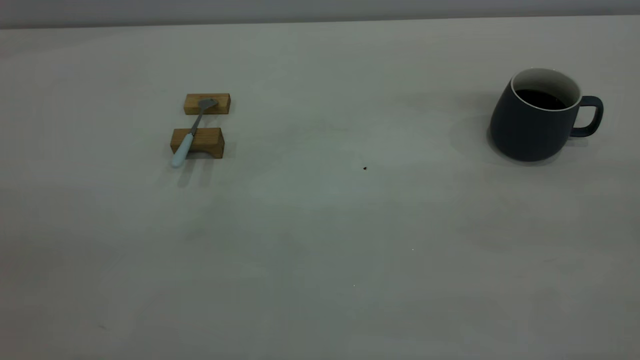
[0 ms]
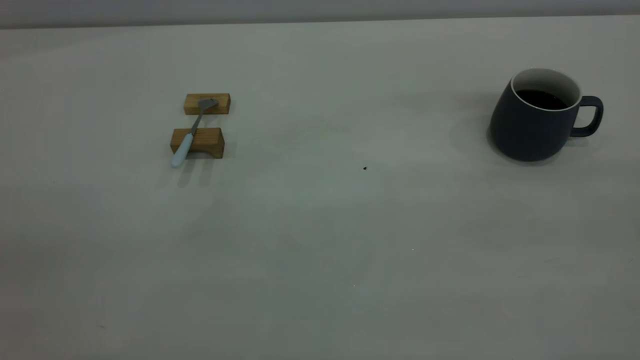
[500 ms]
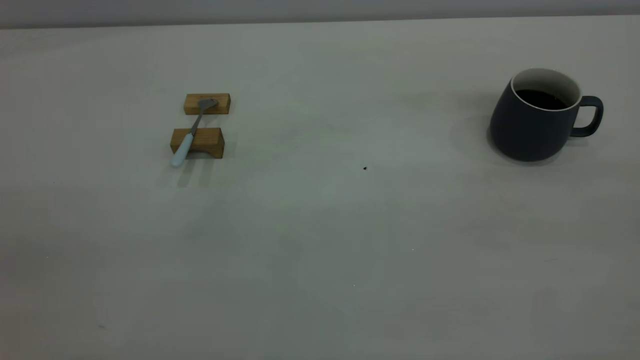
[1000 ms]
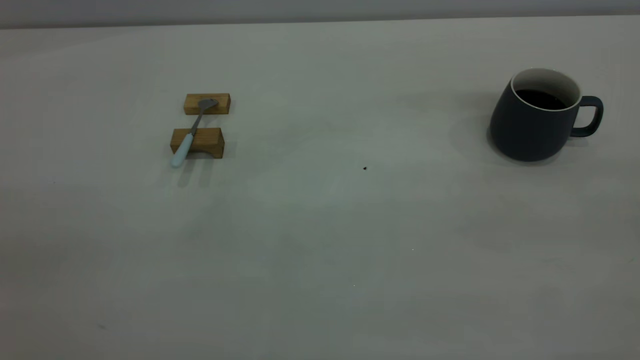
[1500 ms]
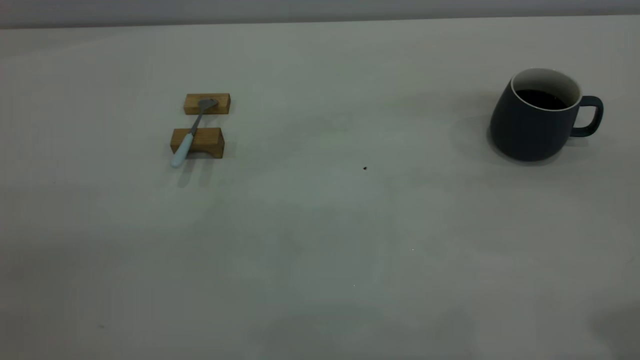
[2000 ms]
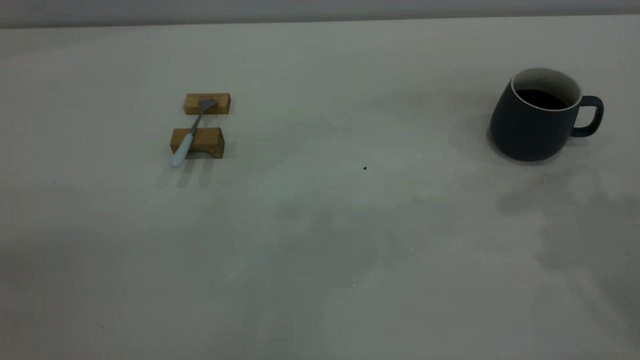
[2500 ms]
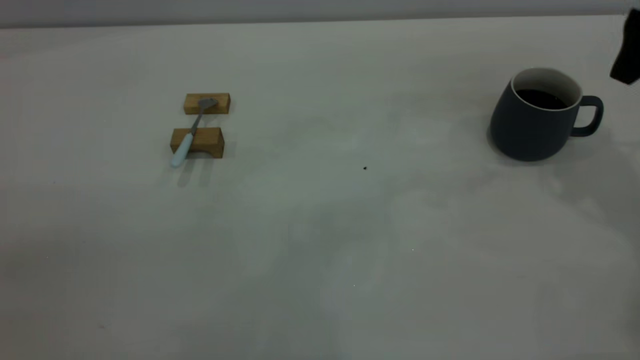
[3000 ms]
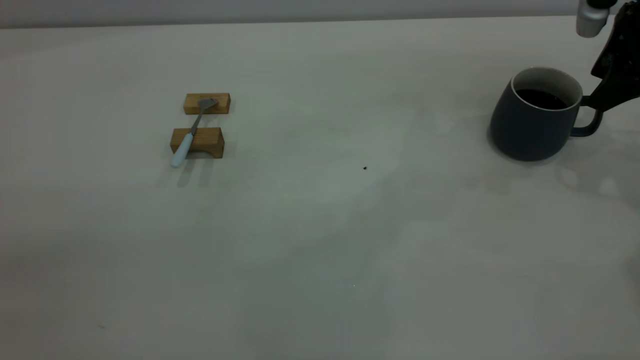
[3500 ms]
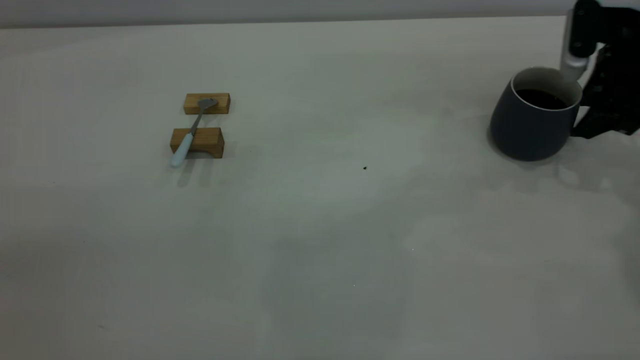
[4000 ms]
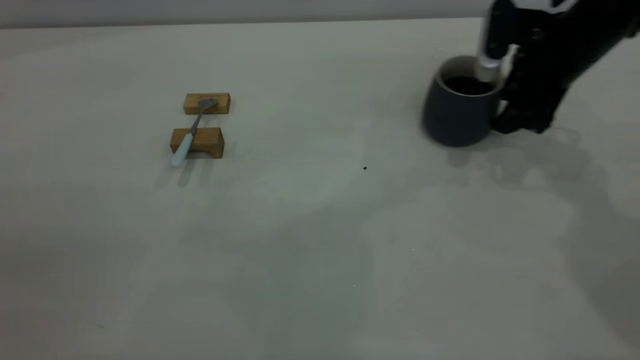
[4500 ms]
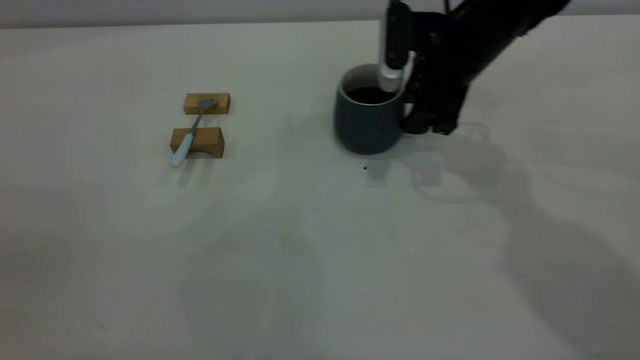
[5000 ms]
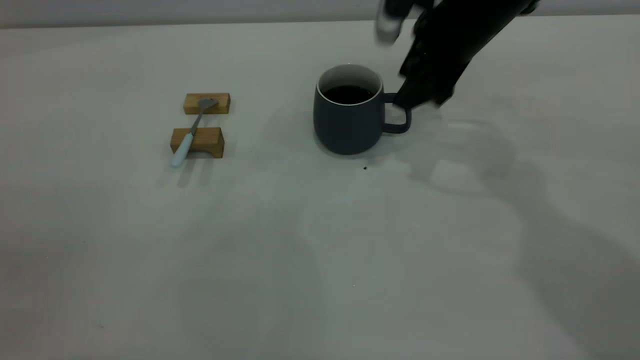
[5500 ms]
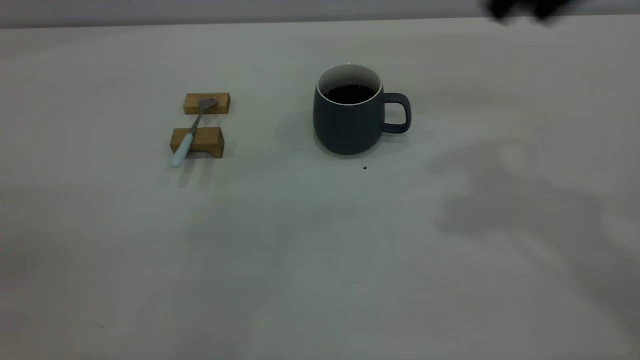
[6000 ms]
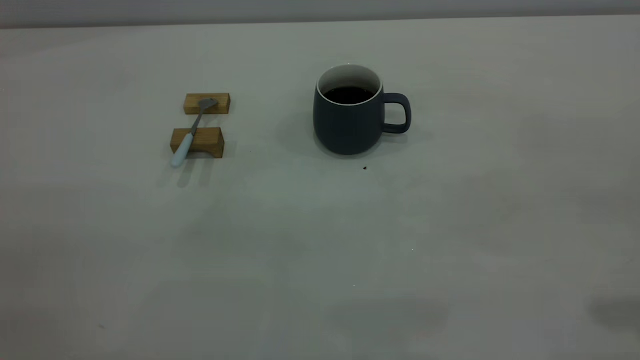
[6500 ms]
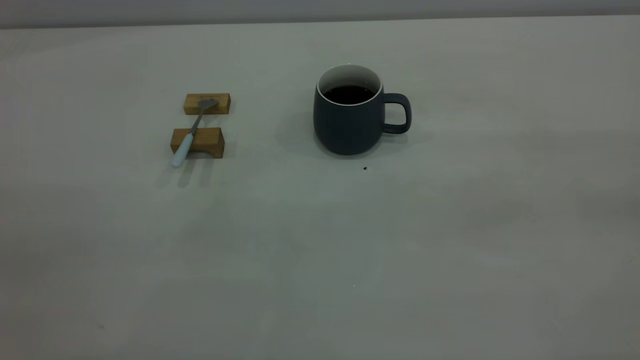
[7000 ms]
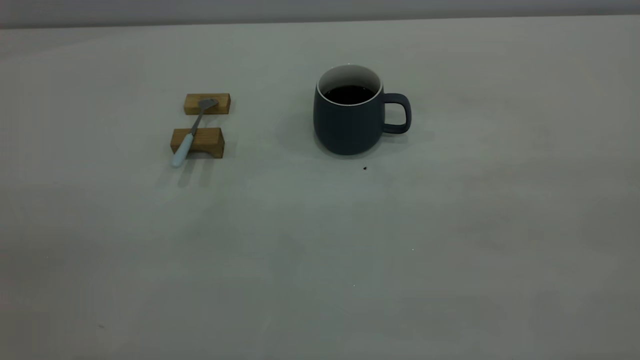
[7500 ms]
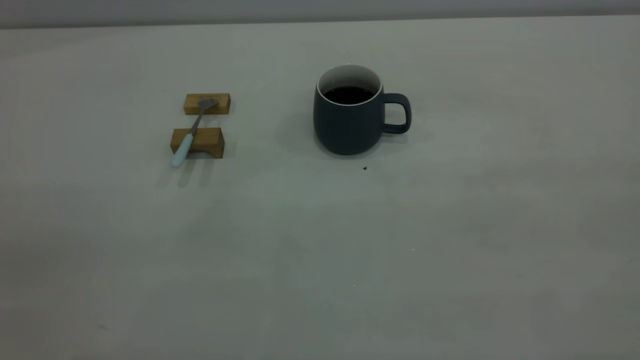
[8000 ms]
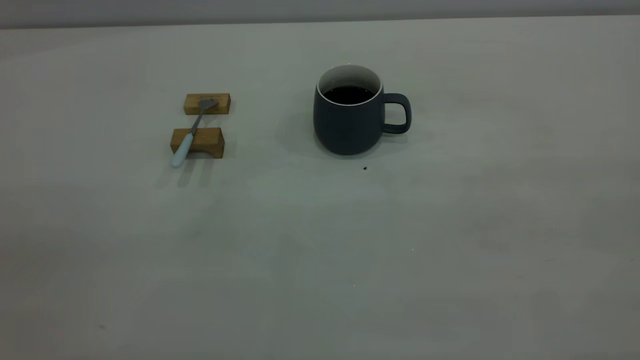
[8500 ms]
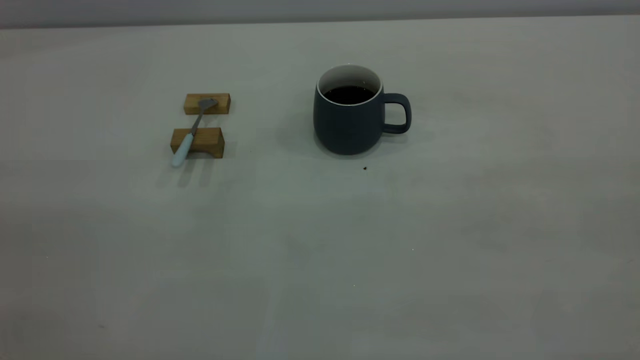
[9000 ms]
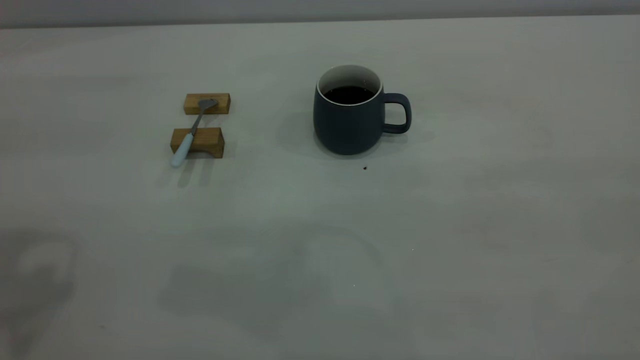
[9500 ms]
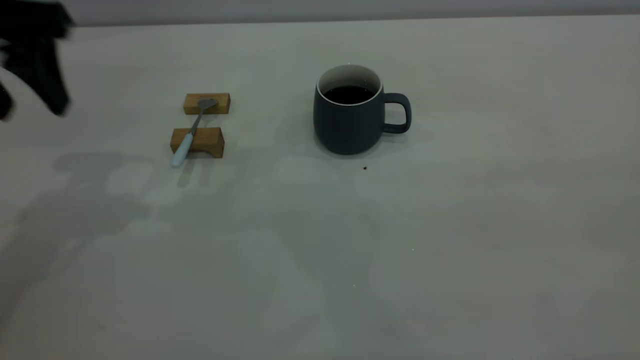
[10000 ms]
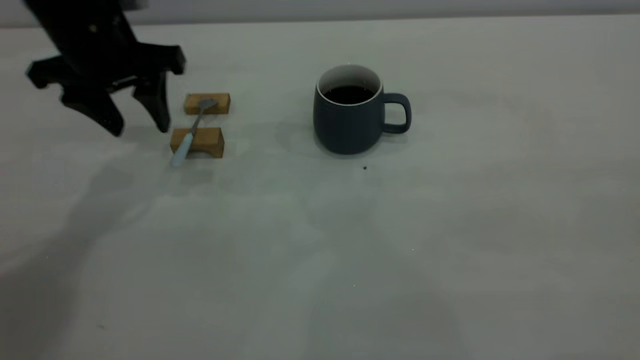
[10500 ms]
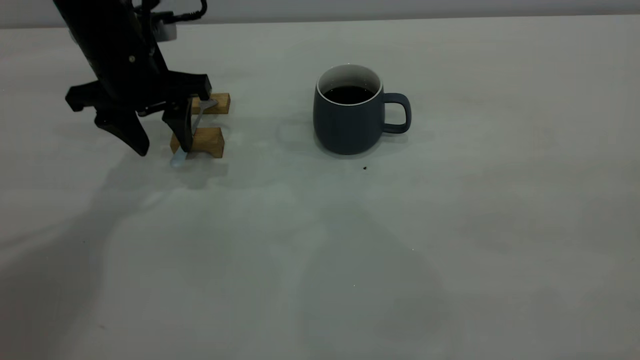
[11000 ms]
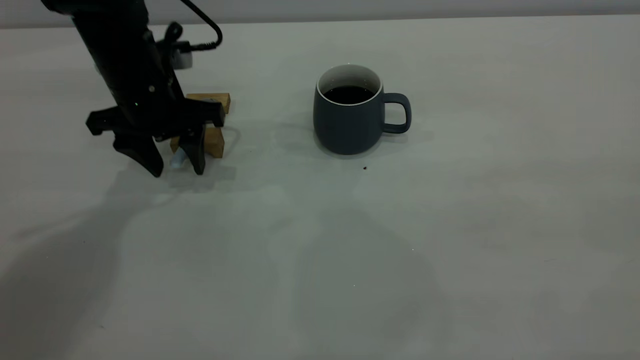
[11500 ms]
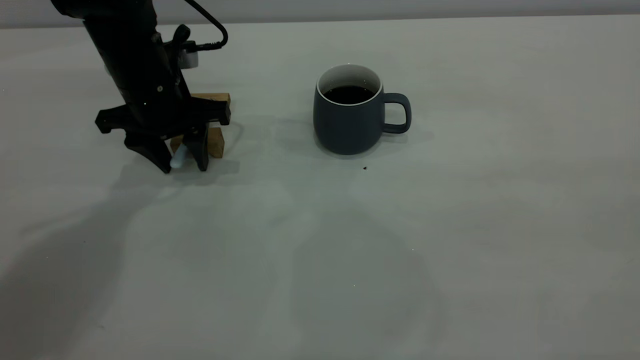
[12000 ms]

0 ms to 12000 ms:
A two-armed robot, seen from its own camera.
Step, 0 ms to 5500 ms: Move the cup with coffee to the center of view.
2000 ms to 4000 ms: The right gripper shifts roughly 35 cm forward and downward, and closes up.
4000 ms to 6000 ms: The right gripper is displaced upward, to the left and backward by approximately 25 cm.
6000 ms to 8000 ms: The right gripper heads backward, covering about 30 cm.
8000 ms to 10000 ms: The left gripper moves forward, some 35 cm, and opens.
10000 ms to 12000 ms: The left gripper shifts approximately 20 cm downward, forward and to the right.

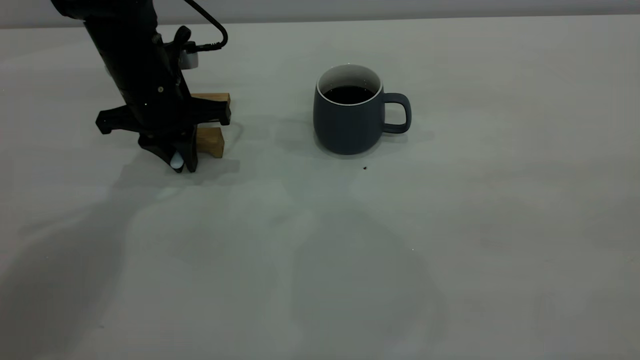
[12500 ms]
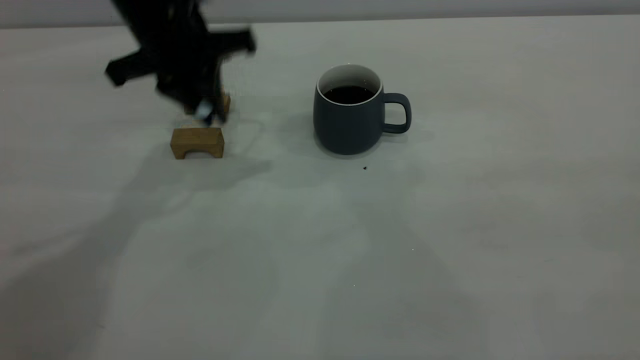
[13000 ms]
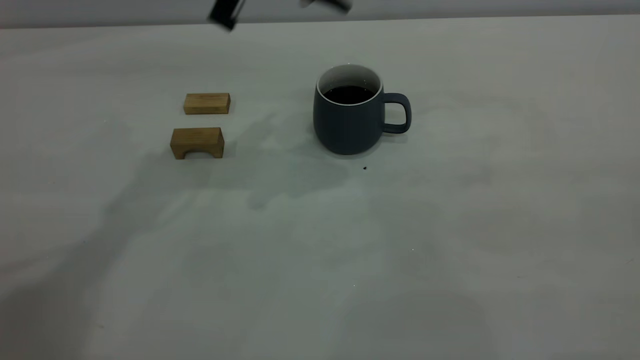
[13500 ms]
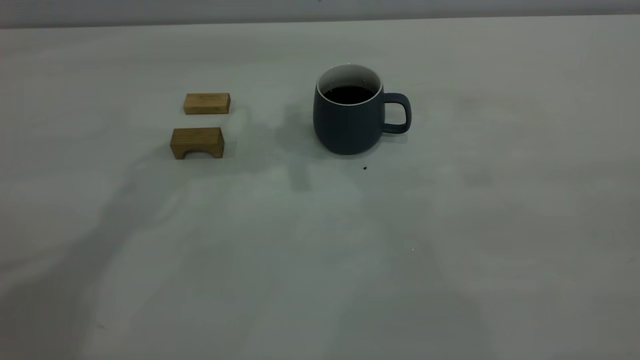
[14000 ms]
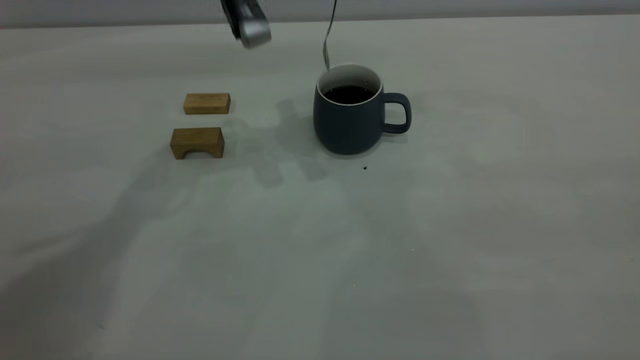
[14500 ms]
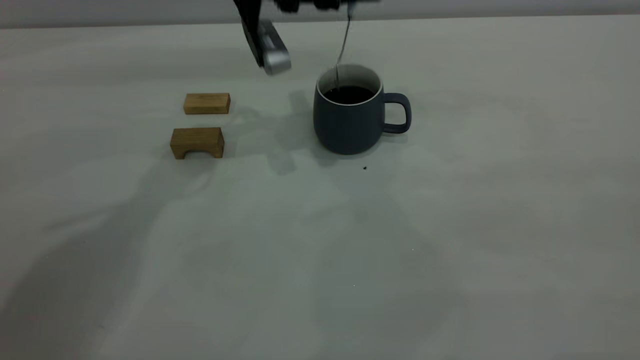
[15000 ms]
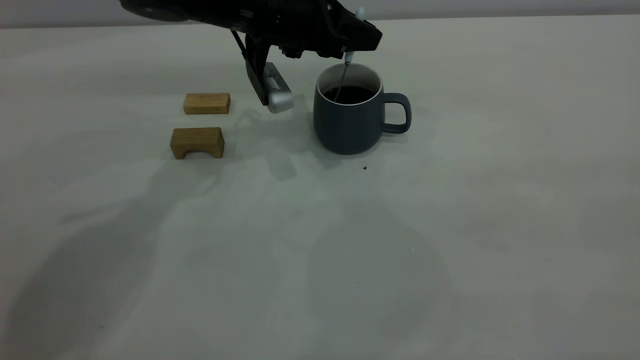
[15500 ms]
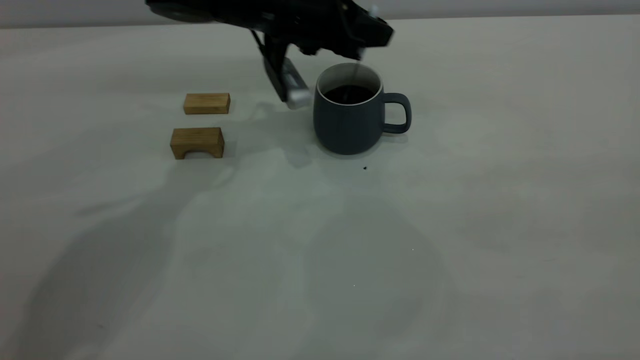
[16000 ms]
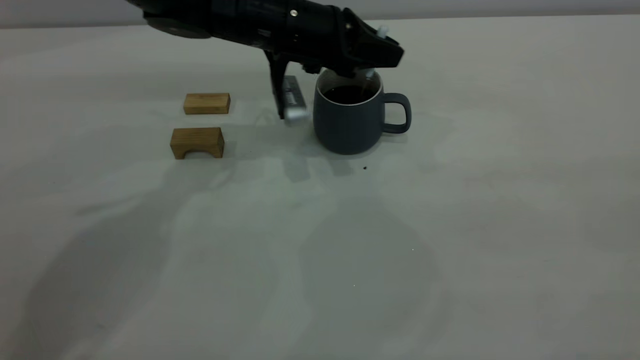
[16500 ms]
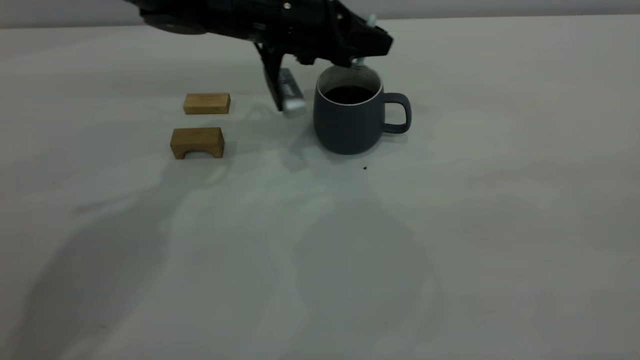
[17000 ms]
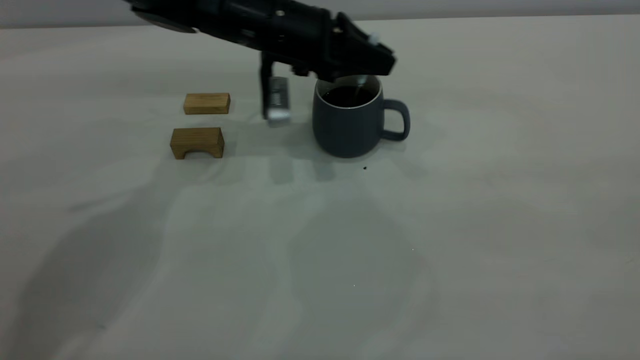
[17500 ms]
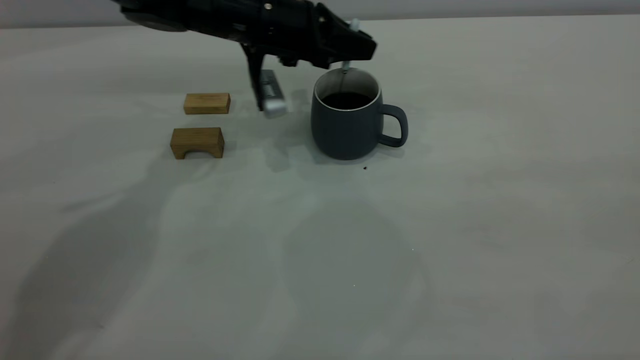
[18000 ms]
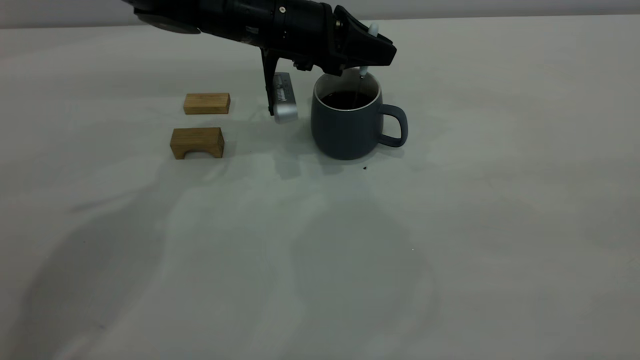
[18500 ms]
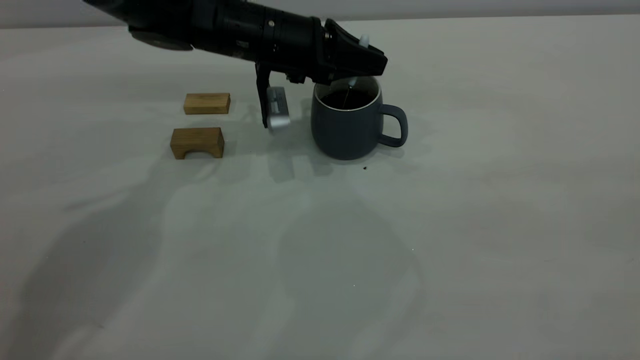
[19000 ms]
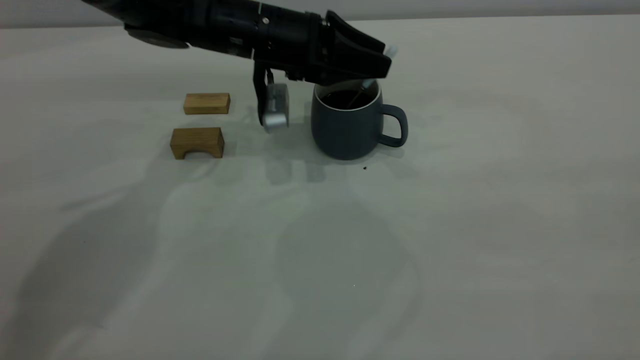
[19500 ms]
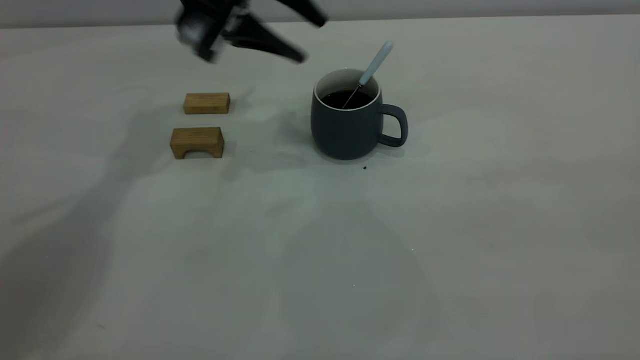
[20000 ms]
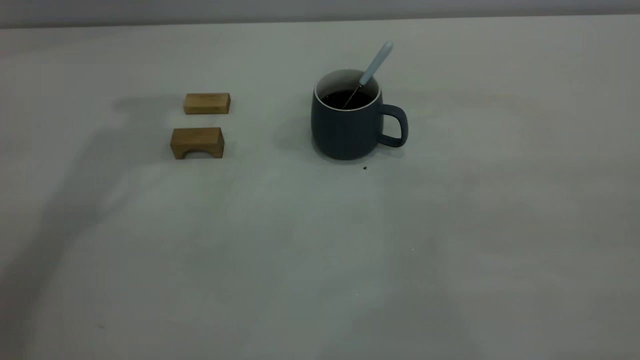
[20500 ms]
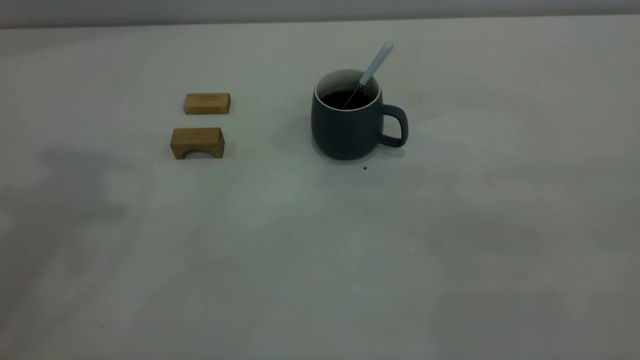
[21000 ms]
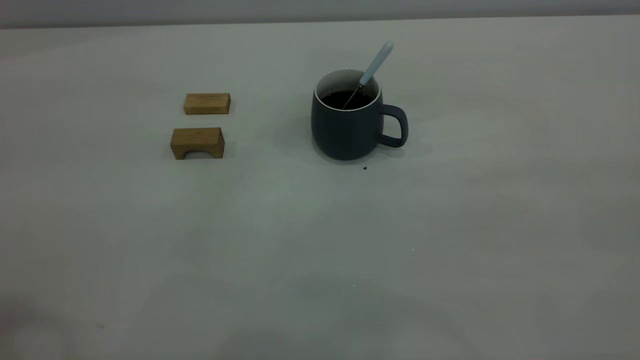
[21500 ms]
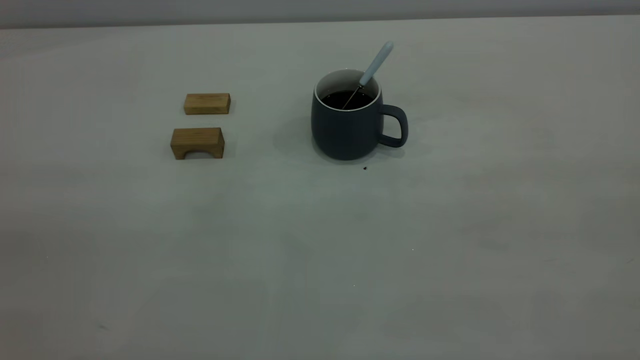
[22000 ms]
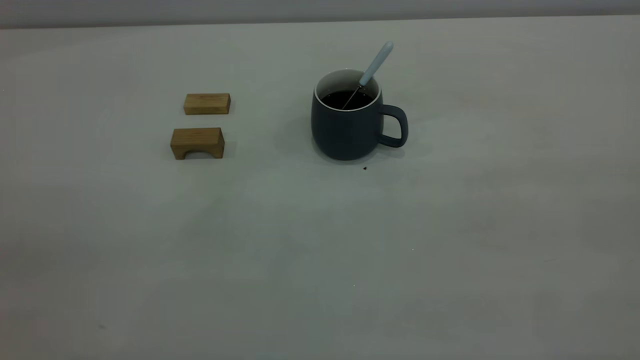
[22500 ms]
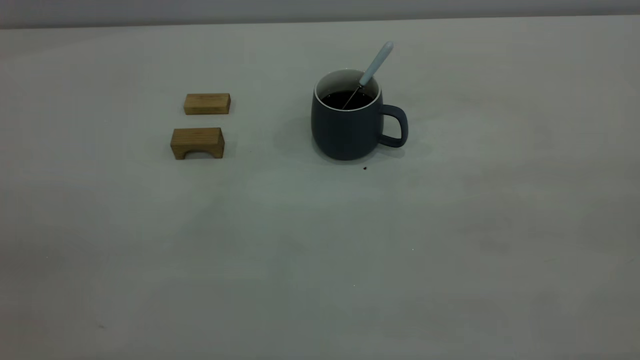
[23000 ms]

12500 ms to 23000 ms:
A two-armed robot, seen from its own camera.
Step, 13000 ms to 19500 ms: Stir the coffee in the cup.
12500 ms to 14500 ms: The left gripper moves upward and to the right, about 15 cm.
14500 ms to 16500 ms: The left gripper shifts roughly 10 cm downward.
16500 ms to 19000 ms: The grippers move only a little.
19000 ms to 21000 ms: The left gripper is displaced upward, backward and to the left by some 50 cm, and opens up.
